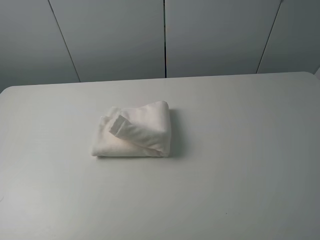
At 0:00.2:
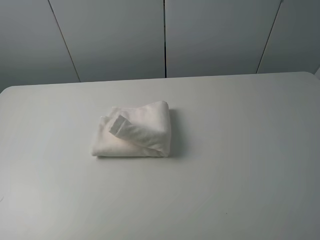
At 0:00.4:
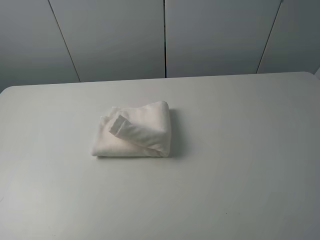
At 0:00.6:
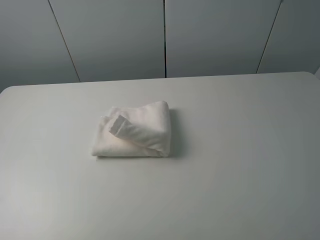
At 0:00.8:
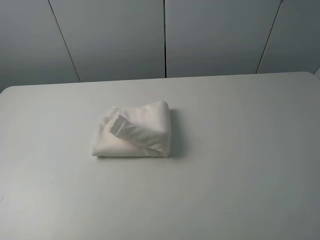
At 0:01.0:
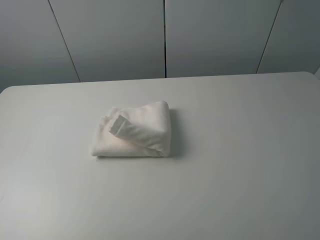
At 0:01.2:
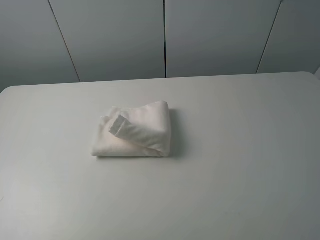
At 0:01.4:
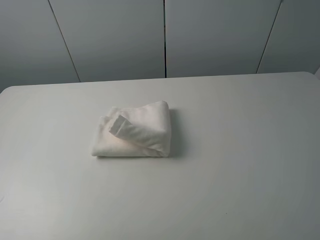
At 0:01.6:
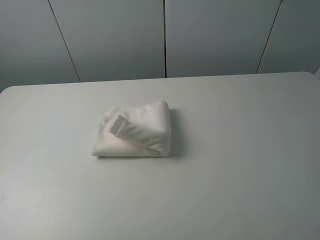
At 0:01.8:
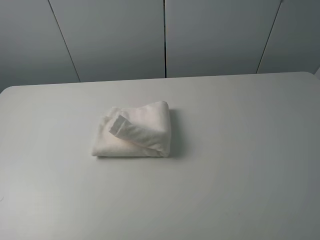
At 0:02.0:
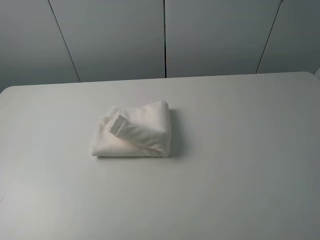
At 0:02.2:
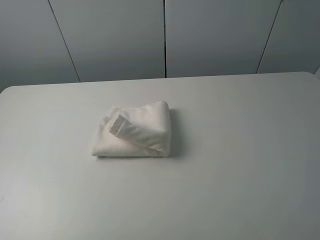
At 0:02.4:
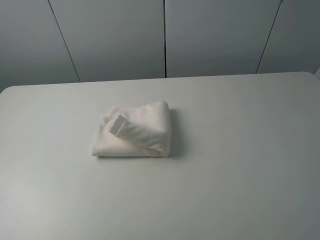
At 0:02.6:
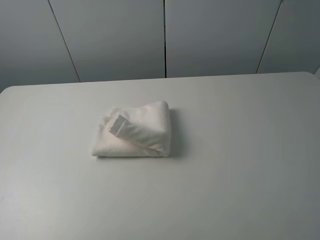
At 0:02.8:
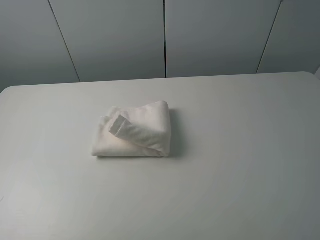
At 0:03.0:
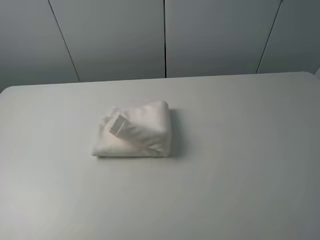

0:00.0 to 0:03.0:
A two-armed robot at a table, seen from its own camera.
Task of the whole recording: fold the towels on the table.
0:01.6 to 0:03.0: Both grippers stay put.
